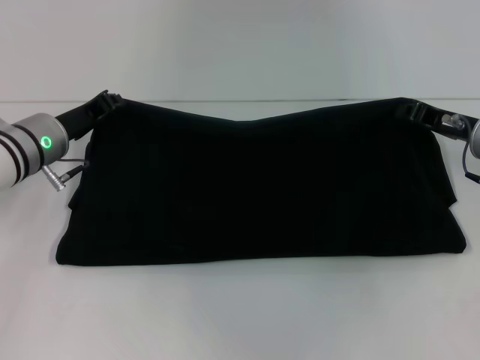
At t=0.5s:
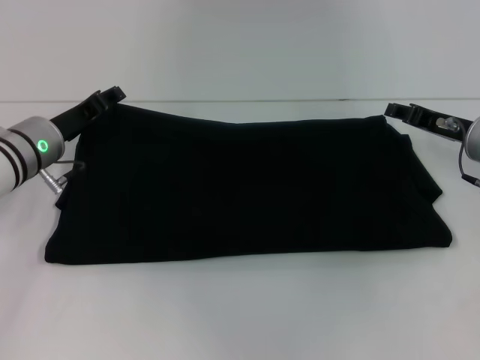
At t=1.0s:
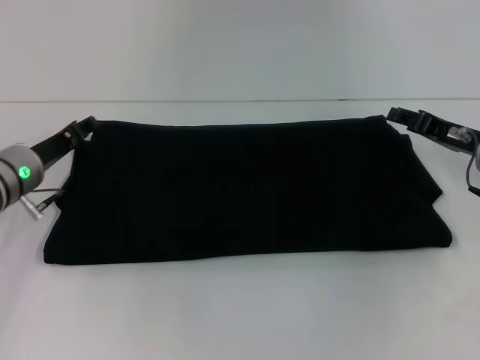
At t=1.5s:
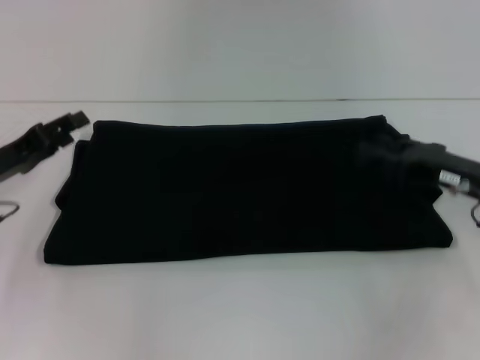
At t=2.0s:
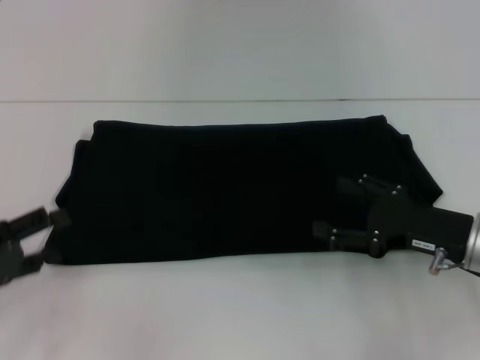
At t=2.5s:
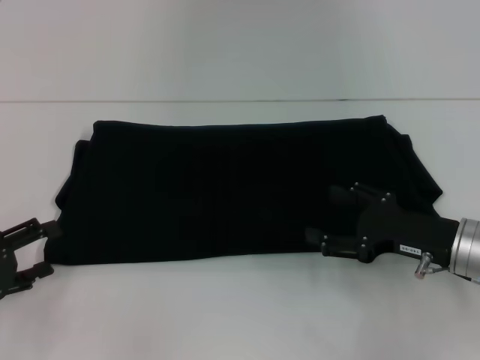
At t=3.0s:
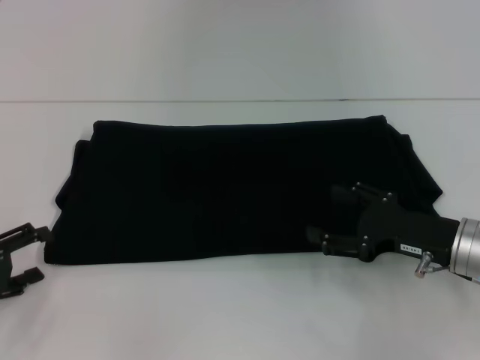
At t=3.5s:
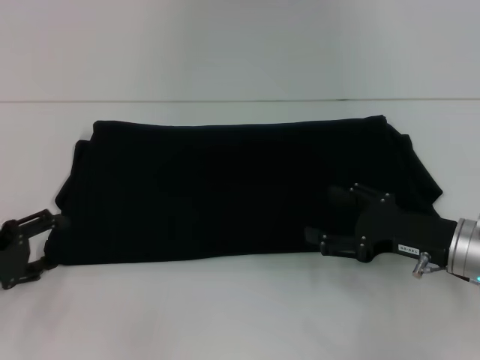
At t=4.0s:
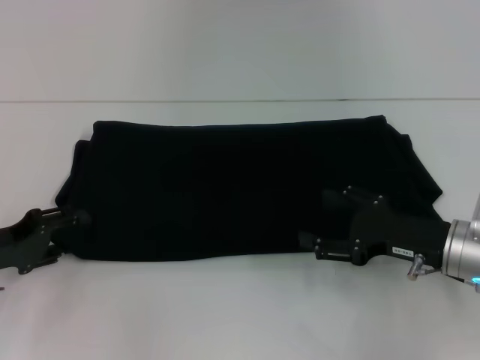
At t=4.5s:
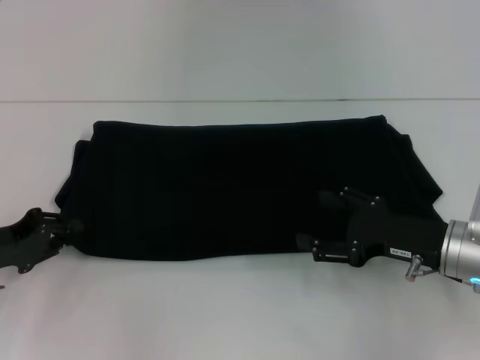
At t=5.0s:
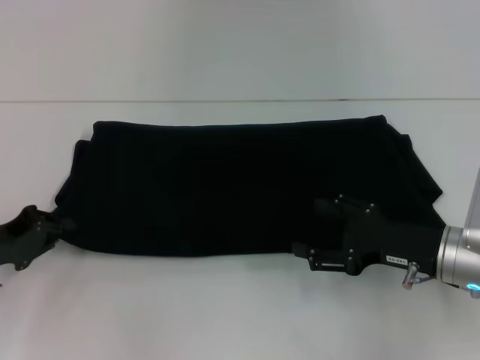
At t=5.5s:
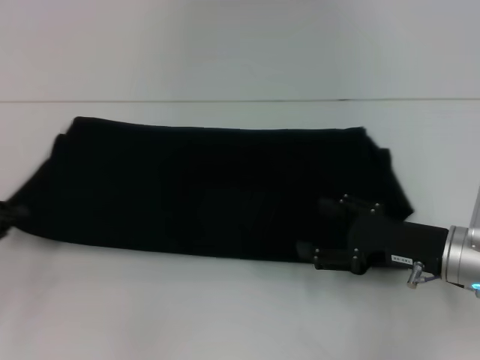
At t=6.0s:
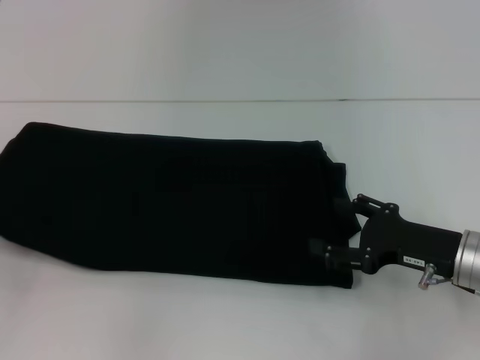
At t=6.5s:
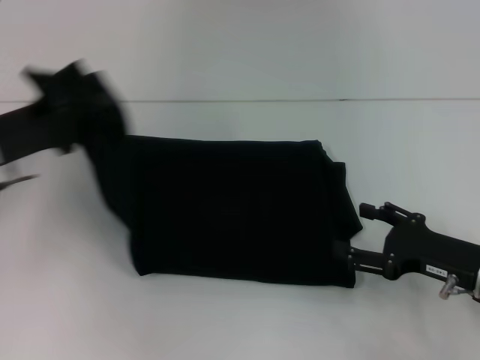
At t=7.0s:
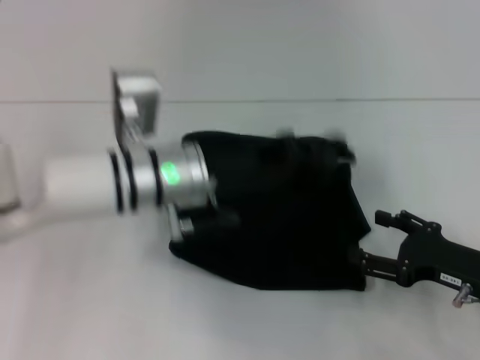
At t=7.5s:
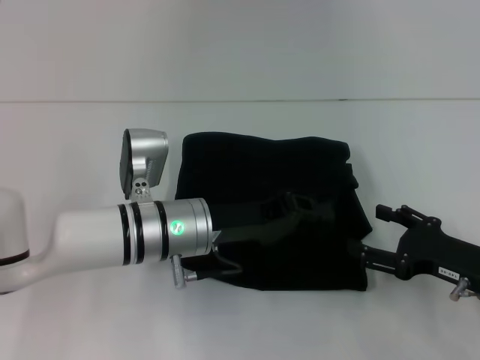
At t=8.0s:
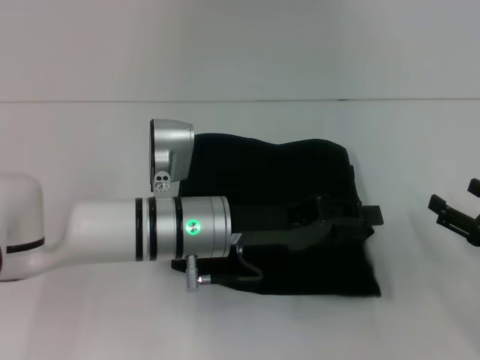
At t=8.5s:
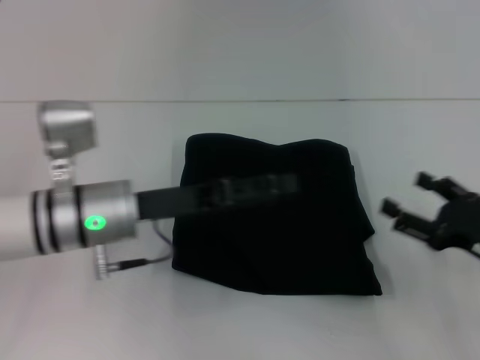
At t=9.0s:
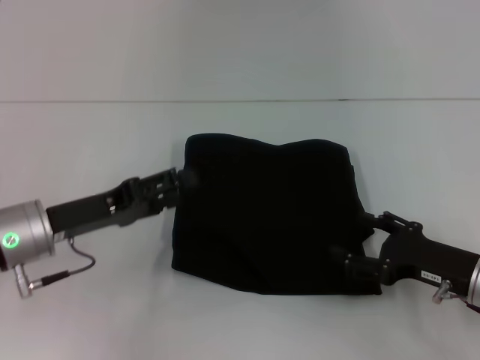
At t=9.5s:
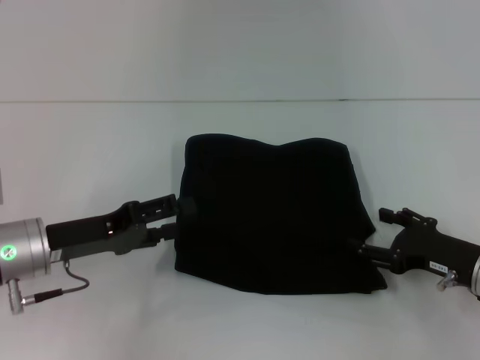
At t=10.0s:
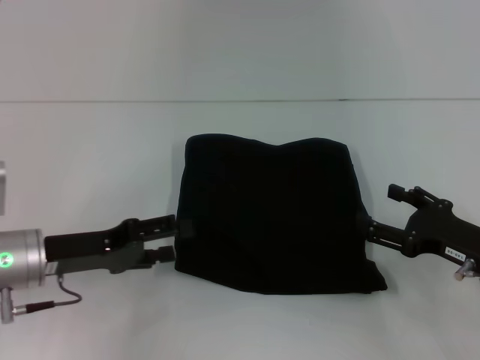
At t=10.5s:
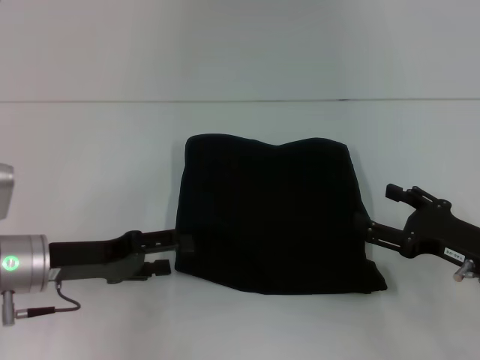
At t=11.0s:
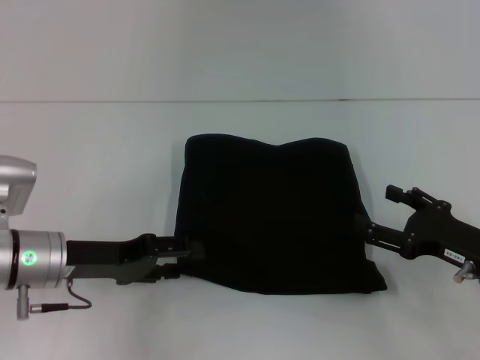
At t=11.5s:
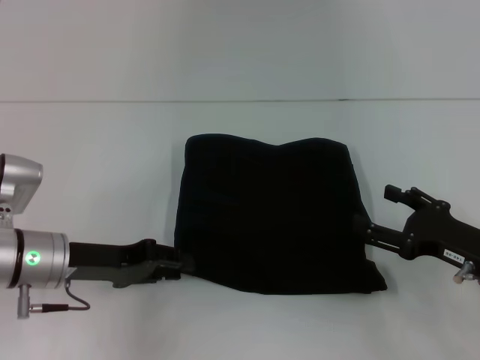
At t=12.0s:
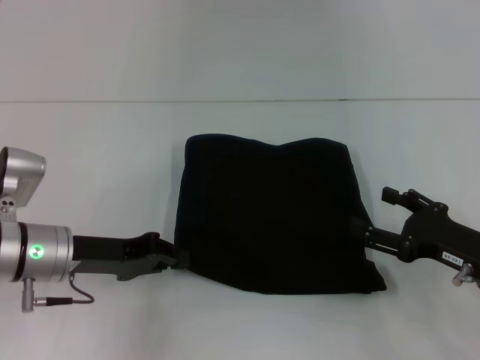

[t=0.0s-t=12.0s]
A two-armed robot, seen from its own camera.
Step, t=0.0s to t=8.5s: Fold the clothes with your left hand.
t=0.0s to t=2.0s: The left gripper is displaced backward and to the left by some 20 cm, and opens. Meanwhile the right gripper travels backward by about 10 cm, and opens up.
t=2.0s to t=4.0s: There are only small adjustments of the grippers.
t=4.0s to t=6.0s: The left gripper moves to the left, approximately 10 cm, and closes up.
t=6.0s to t=8.0s: The left gripper travels to the right by approximately 35 cm, while the right gripper goes about 10 cm to the right.
t=8.0s to t=10.0s: The right gripper shifts some 5 cm to the left. The left gripper moves to the left, some 15 cm, and opens its fingers.
t=10.0s to t=12.0s: The left gripper closes up.

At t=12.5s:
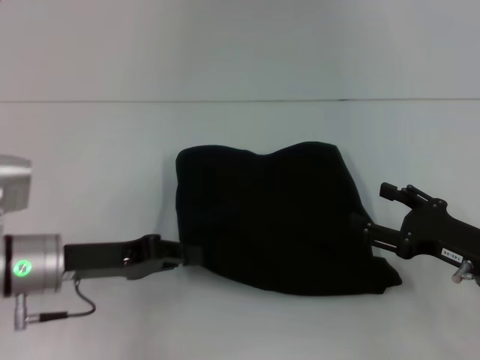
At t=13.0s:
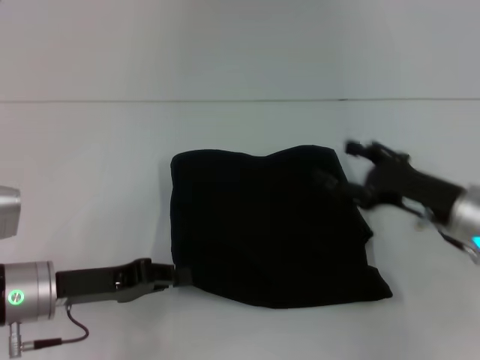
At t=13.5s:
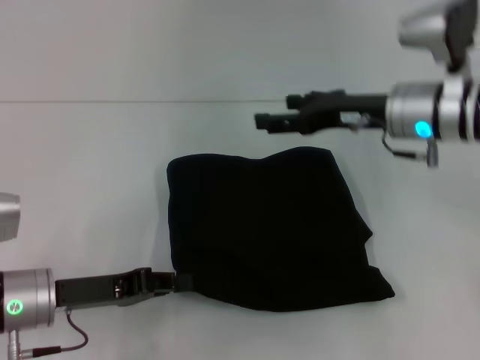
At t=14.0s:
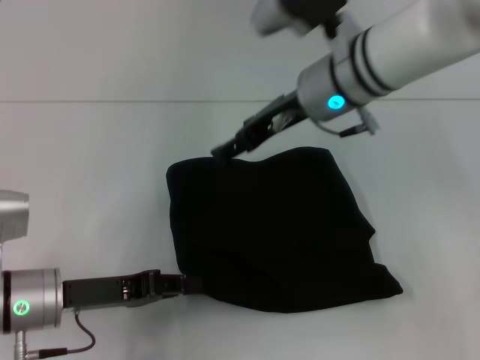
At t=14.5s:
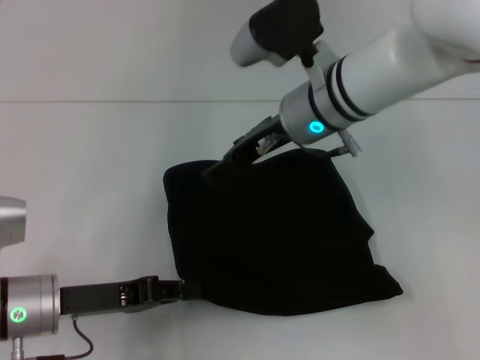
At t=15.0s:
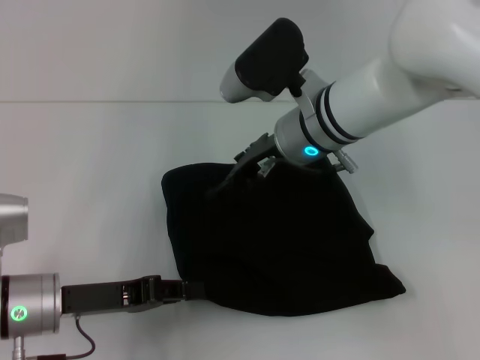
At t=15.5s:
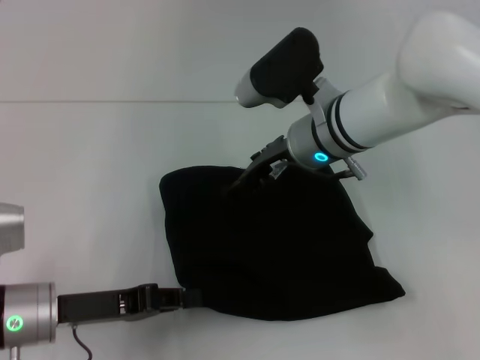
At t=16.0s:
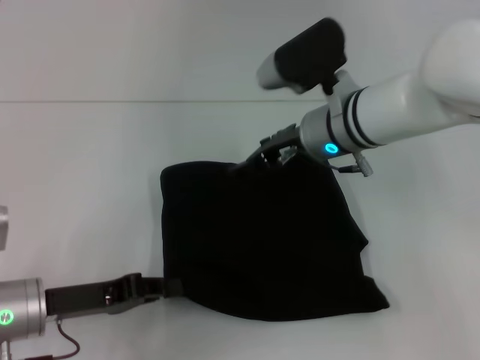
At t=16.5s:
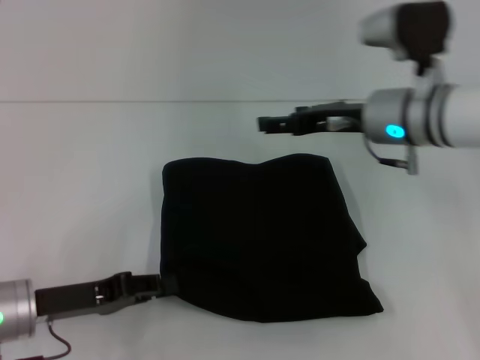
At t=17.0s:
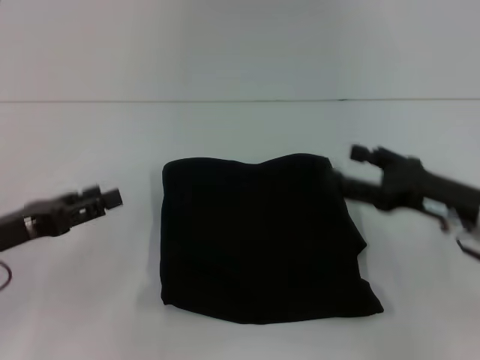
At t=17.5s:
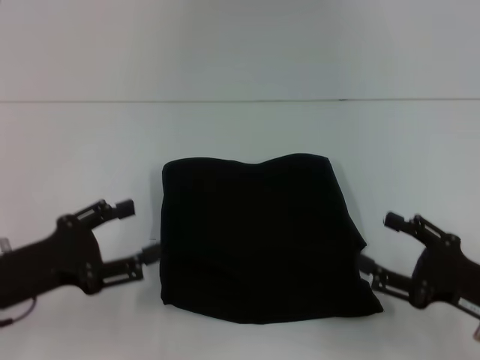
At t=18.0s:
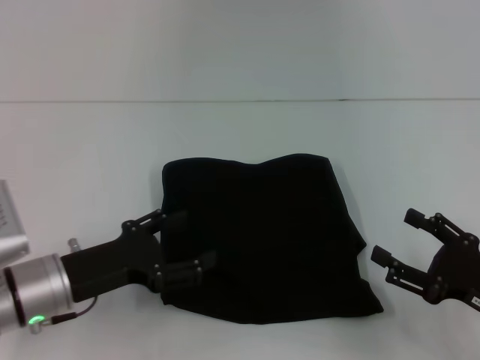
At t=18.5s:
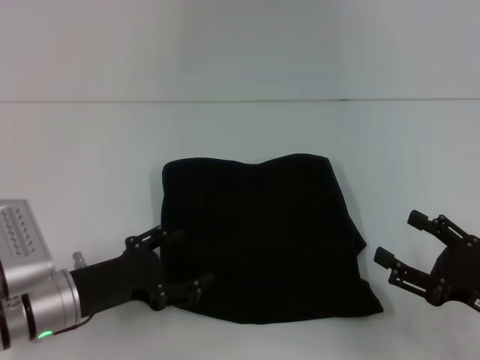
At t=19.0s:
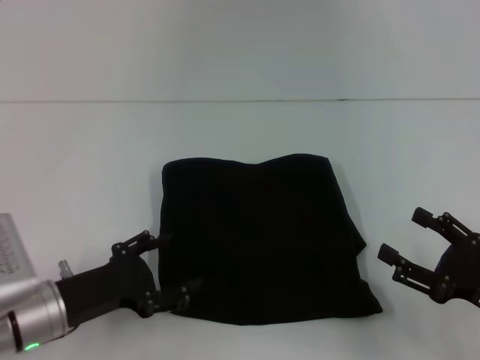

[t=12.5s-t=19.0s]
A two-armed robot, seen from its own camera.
t=12.5s to t=14.5s: The right gripper is displaced to the left, forward and upward by roughly 30 cm.
t=14.5s to t=17.0s: The left gripper is displaced to the left by approximately 10 cm, and opens its fingers, while the right gripper travels to the right, backward and downward by approximately 25 cm.
t=17.0s to t=19.0s: The right gripper heads backward and downward, covering roughly 10 cm, while the left gripper moves to the right and downward, roughly 10 cm, and opens its fingers.

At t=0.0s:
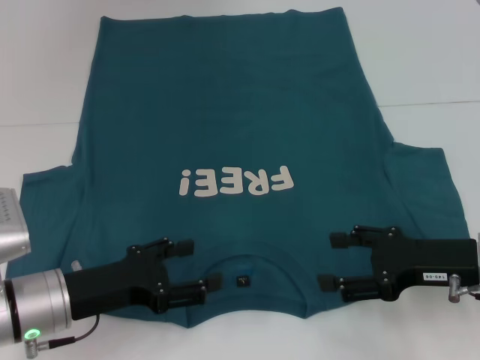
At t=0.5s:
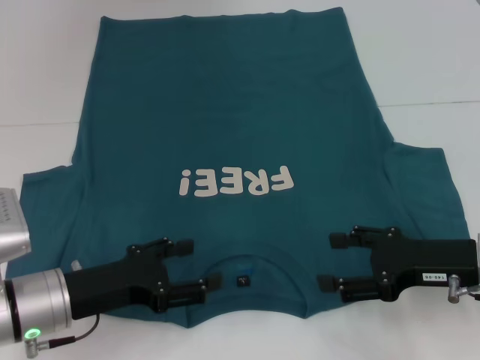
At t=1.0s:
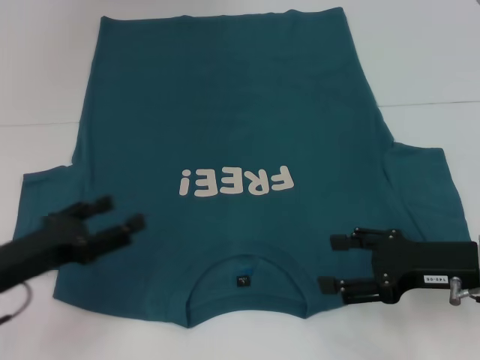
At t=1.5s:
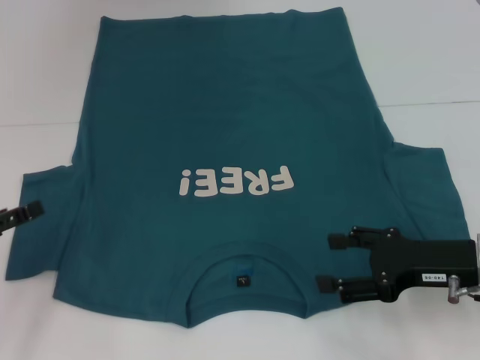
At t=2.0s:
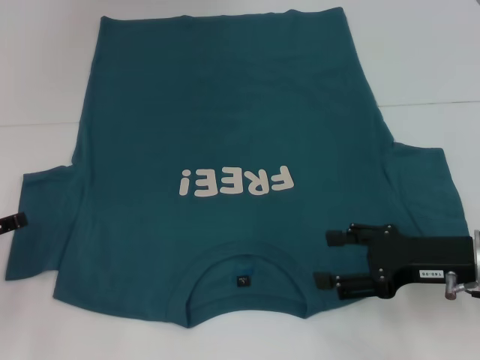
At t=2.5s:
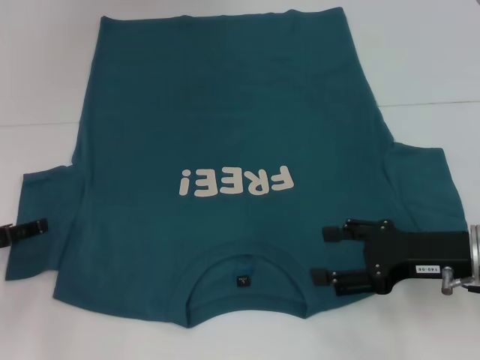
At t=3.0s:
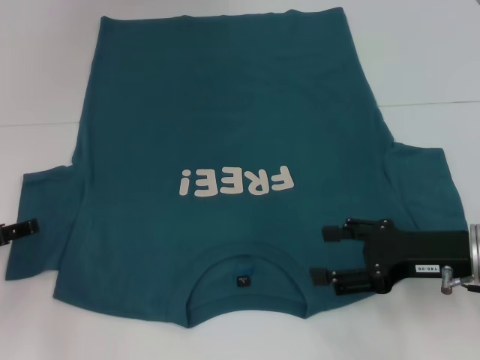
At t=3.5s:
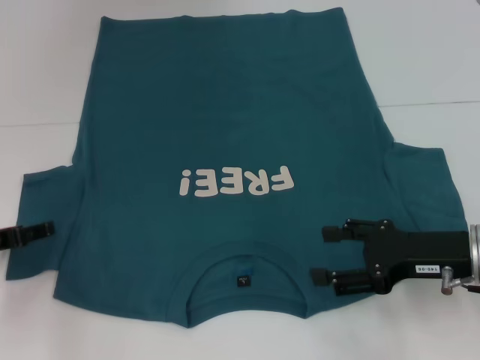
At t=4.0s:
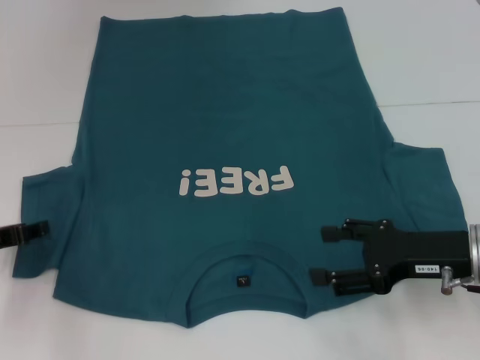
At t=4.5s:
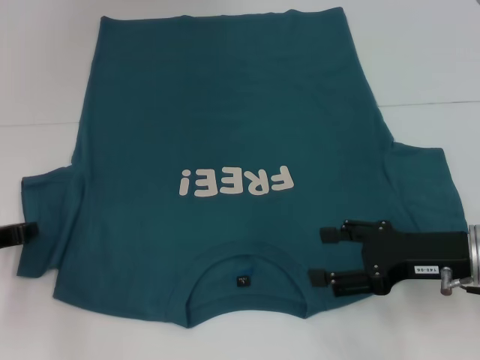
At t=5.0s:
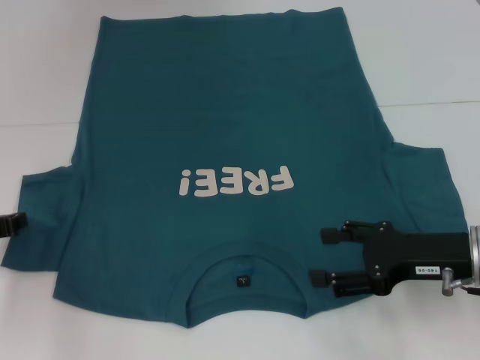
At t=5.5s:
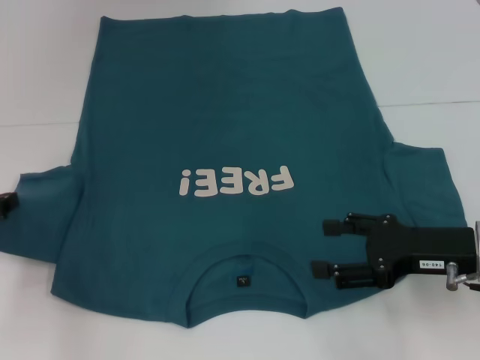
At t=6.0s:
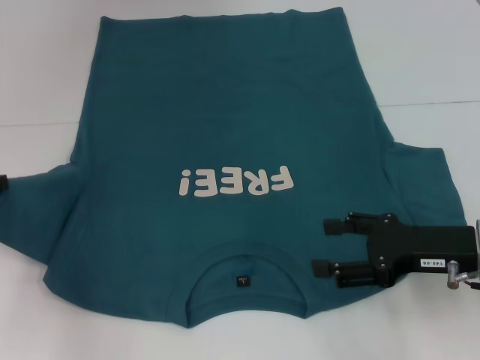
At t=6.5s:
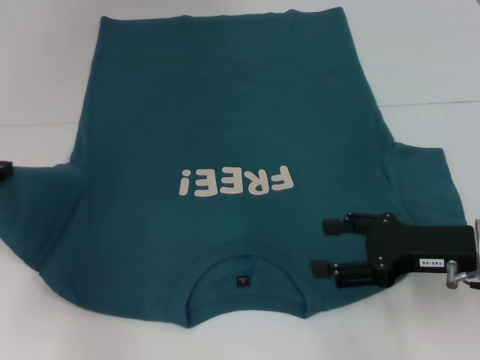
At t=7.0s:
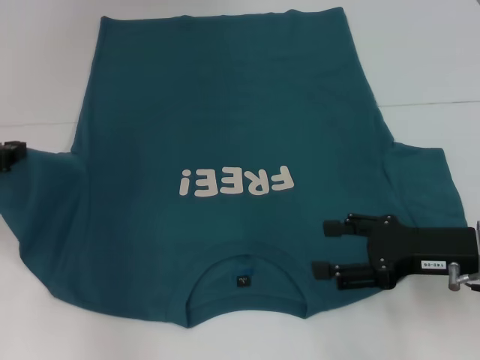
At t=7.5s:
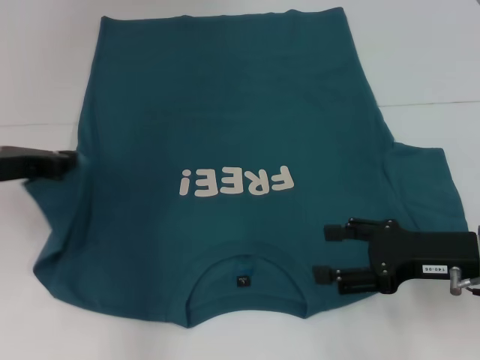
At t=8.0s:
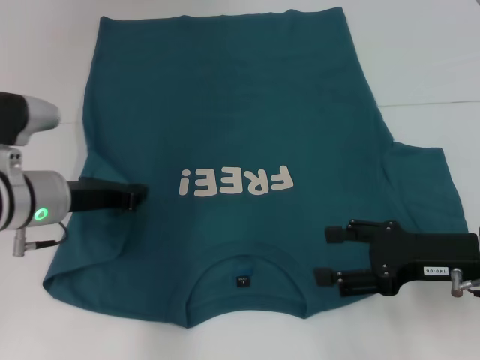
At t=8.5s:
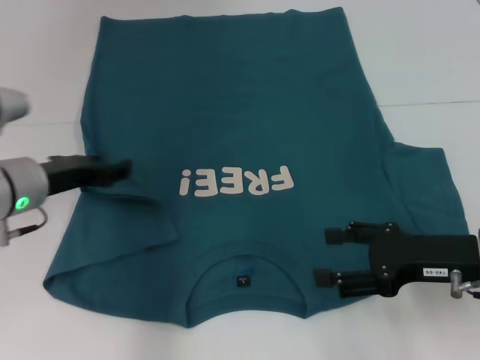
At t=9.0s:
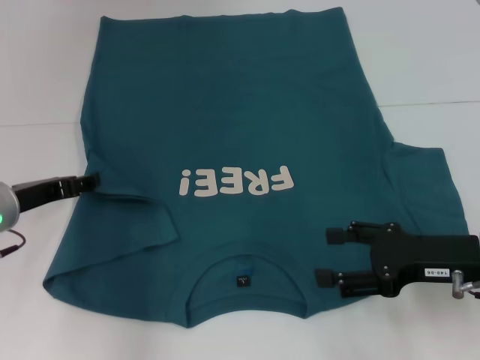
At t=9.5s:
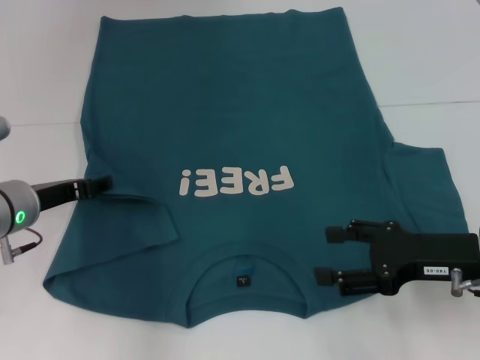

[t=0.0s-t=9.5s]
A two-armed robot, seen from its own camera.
t=0.0s to t=2.0s: The left gripper heads to the left, covering about 15 cm.
t=2.0s to t=4.0s: The grippers move only a little.
t=4.0s to t=5.5s: The left gripper closes its fingers.
t=5.5s to t=7.5s: The left gripper is displaced upward and to the right by some 10 cm.
t=7.5s to t=9.5s: The left gripper shifts approximately 10 cm downward, and opens its fingers.
